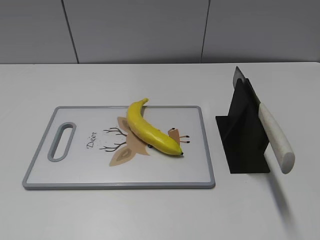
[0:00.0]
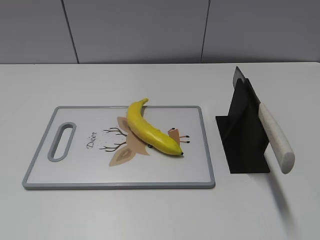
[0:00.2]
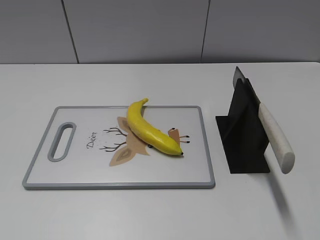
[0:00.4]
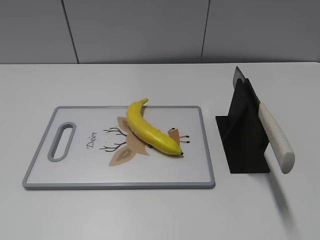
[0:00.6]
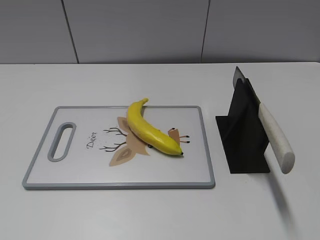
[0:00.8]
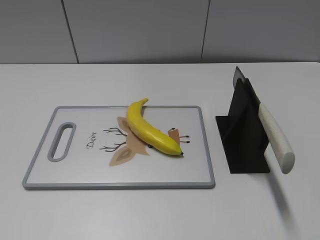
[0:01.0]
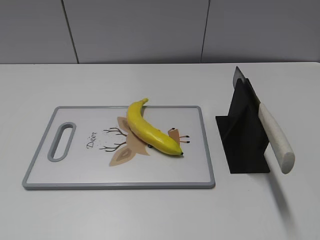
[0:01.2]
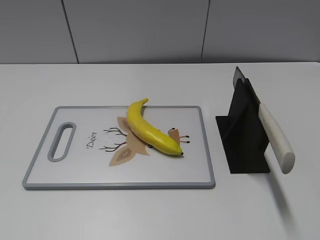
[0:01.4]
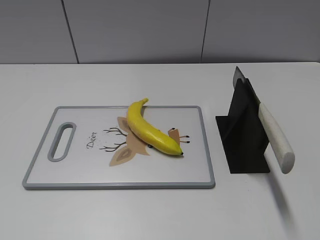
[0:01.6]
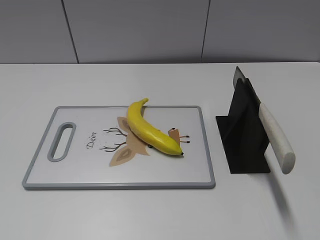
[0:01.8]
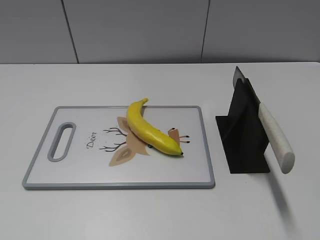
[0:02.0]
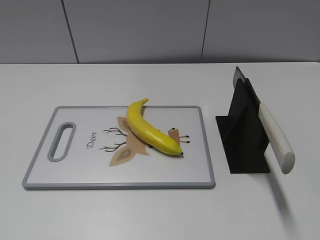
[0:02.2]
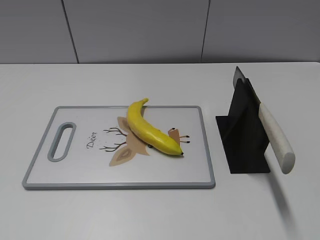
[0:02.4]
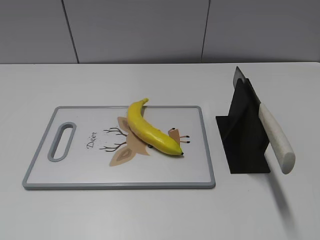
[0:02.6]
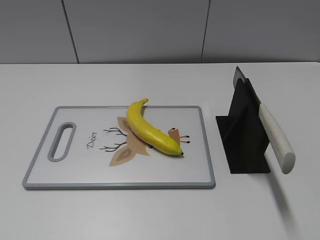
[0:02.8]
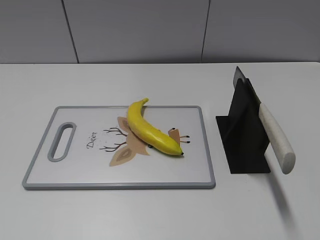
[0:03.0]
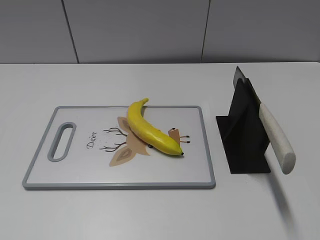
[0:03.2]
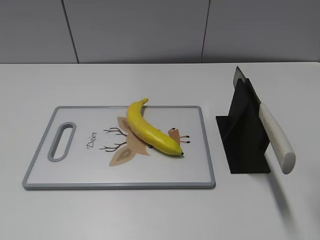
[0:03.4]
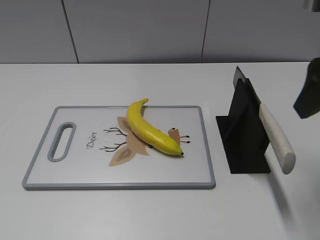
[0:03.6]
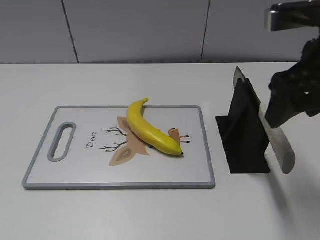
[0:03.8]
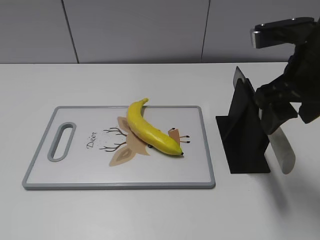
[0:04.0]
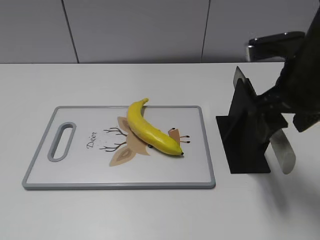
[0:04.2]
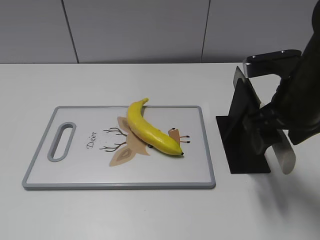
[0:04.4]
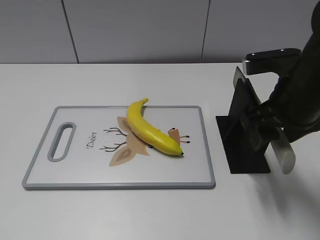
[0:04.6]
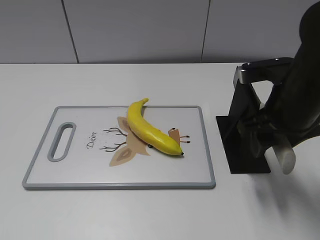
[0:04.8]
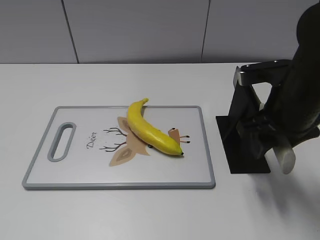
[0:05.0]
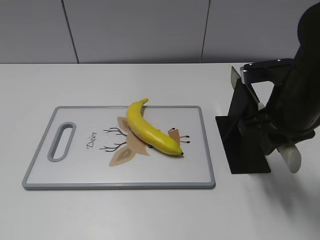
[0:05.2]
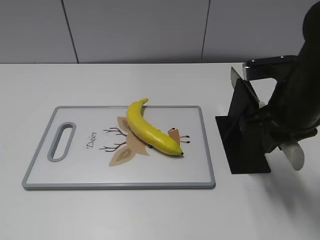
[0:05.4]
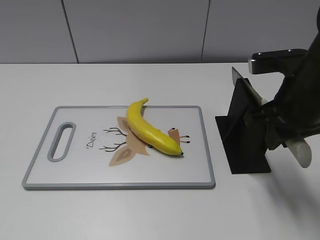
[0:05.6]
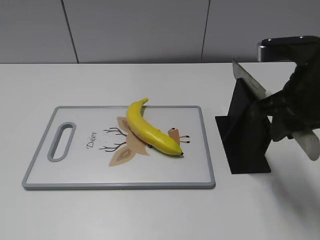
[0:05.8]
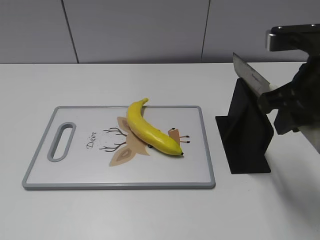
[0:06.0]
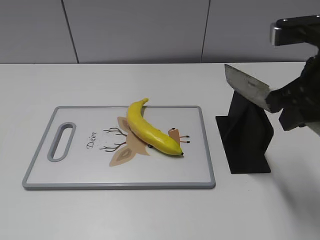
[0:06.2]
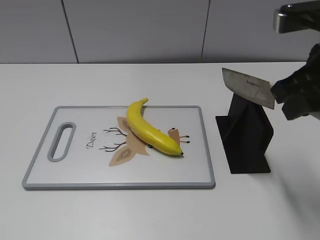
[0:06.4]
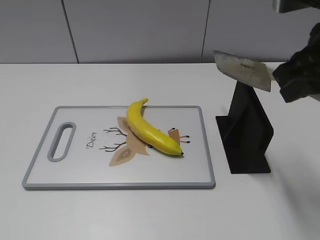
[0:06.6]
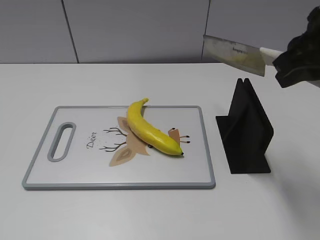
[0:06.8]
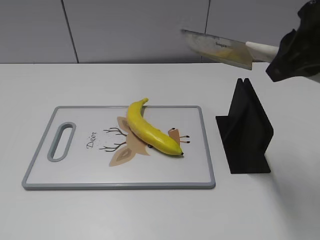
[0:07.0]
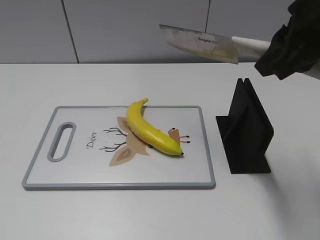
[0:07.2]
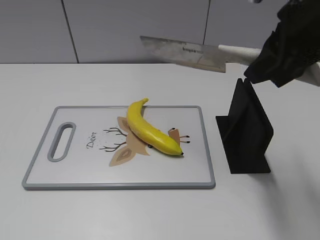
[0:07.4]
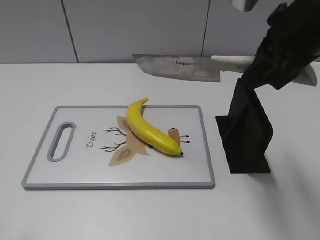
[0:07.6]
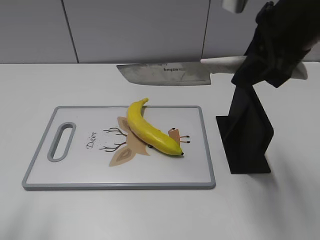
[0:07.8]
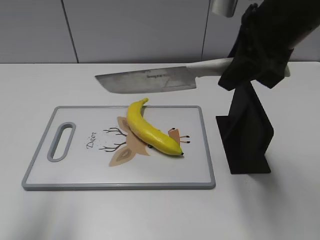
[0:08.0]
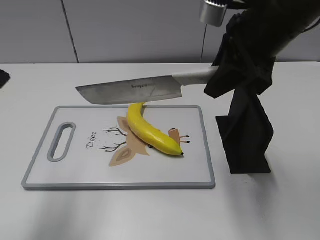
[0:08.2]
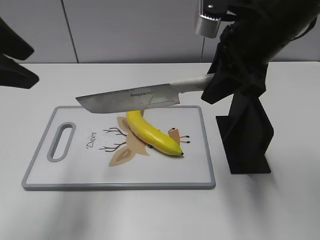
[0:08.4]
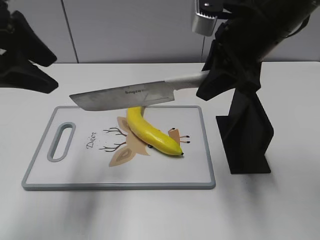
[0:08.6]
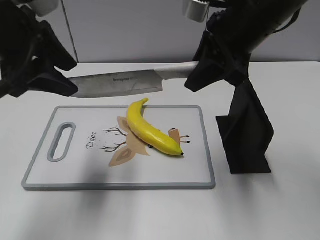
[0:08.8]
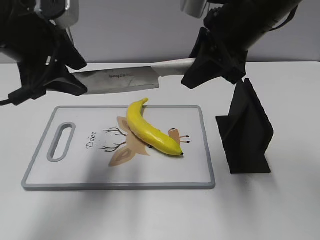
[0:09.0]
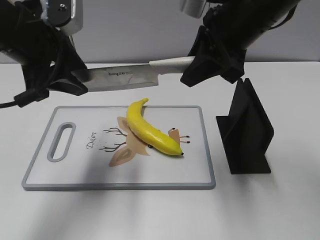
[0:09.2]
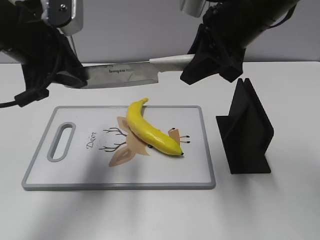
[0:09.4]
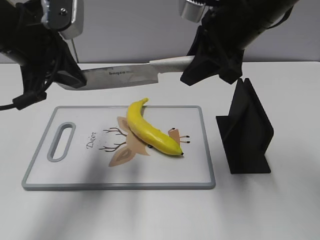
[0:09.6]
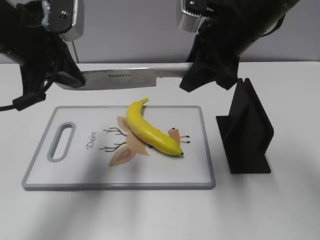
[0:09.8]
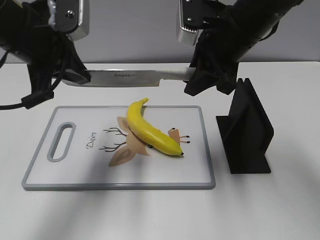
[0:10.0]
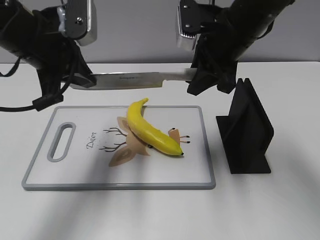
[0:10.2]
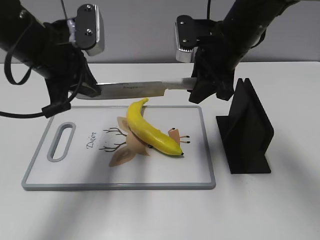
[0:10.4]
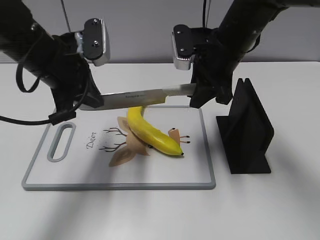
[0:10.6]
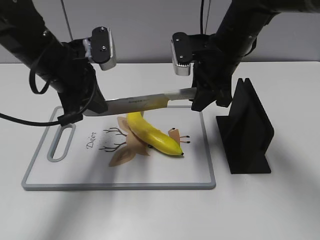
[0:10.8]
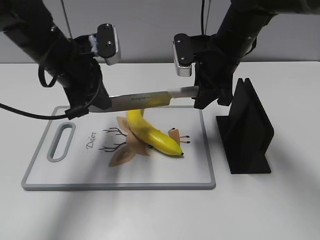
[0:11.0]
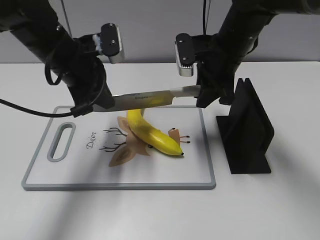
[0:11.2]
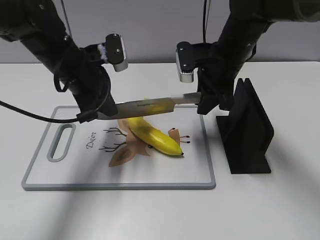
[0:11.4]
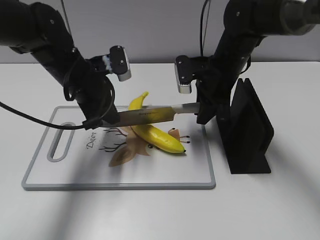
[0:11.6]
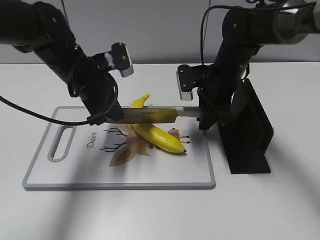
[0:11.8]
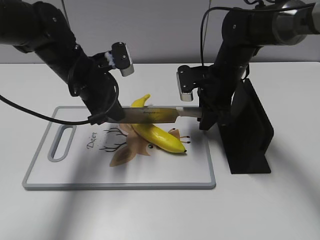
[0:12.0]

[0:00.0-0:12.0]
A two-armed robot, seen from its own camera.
Task of the whole recording: cut plastic banana.
Step, 0:00.0 to 0:06.4: Grab the knife handle with your right hand.
0:03.0 to 0:04.4: The right gripper travels forward, downward and to the left by roughly 20 cm.
0:04.4 to 0:06.0: The right gripper closes its fingers.
0:06.0 to 0:07.6: The left gripper moves forward, about 5 cm. The right gripper shifts about 5 cm upward.
0:07.6 to 0:09.0: The right gripper is displaced forward and to the left by approximately 5 cm, while the left gripper goes approximately 25 cm forward and to the right.
0:09.0 to 0:10.4: The right gripper is displaced downward and forward by about 10 cm, while the left gripper ends up about 5 cm from where it was, and closes up.
0:10.4 to 0:12.0: Both grippers move downward, approximately 10 cm.

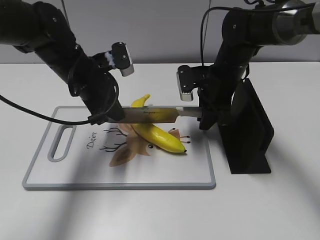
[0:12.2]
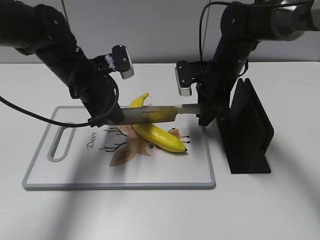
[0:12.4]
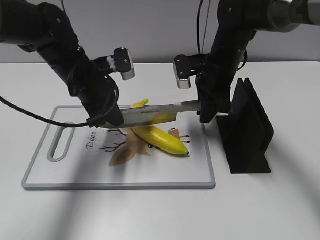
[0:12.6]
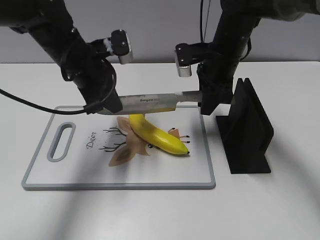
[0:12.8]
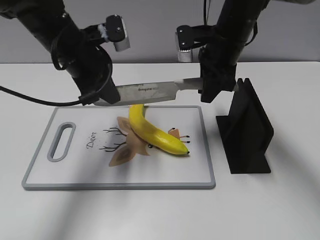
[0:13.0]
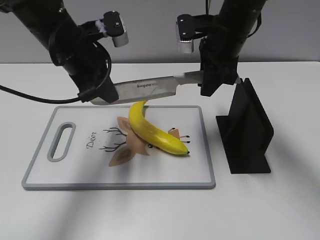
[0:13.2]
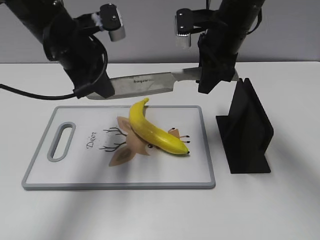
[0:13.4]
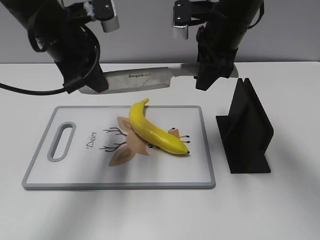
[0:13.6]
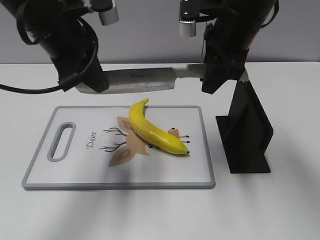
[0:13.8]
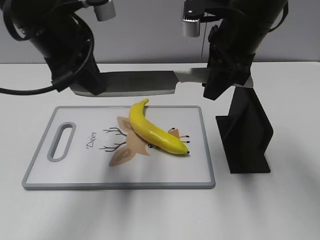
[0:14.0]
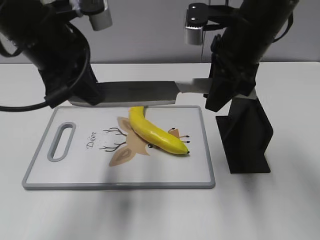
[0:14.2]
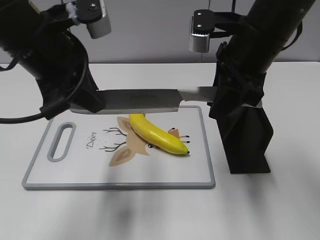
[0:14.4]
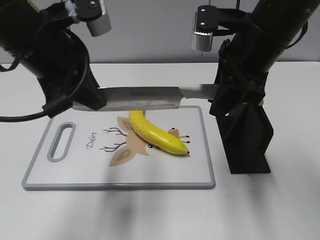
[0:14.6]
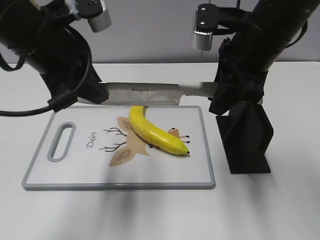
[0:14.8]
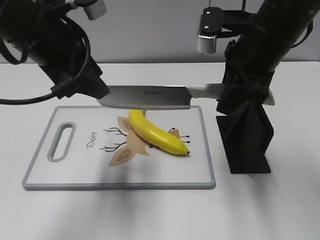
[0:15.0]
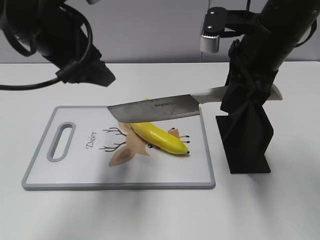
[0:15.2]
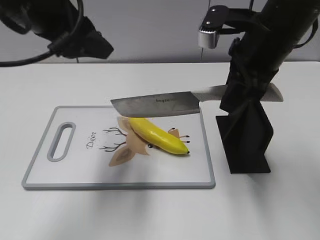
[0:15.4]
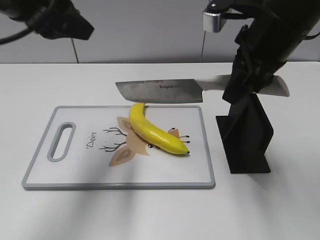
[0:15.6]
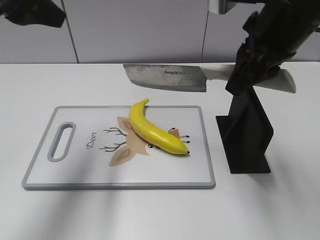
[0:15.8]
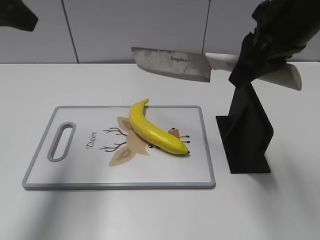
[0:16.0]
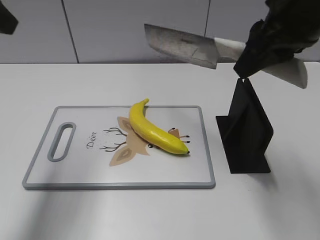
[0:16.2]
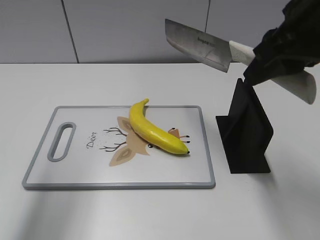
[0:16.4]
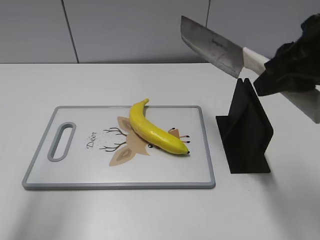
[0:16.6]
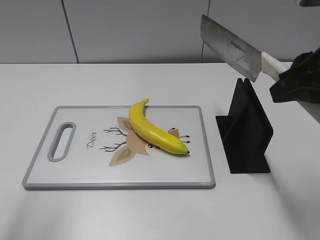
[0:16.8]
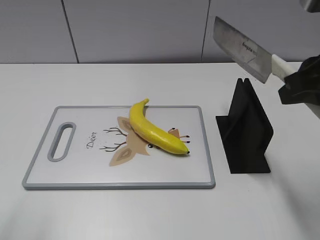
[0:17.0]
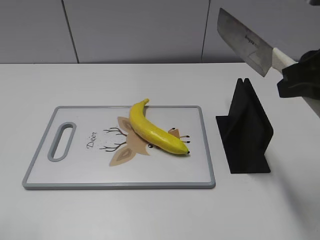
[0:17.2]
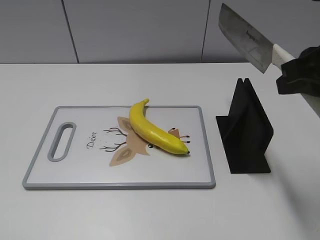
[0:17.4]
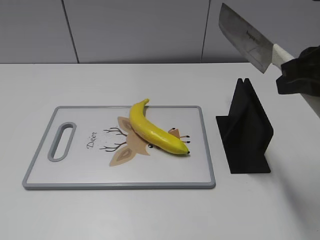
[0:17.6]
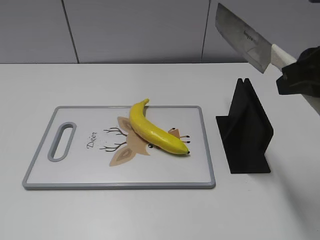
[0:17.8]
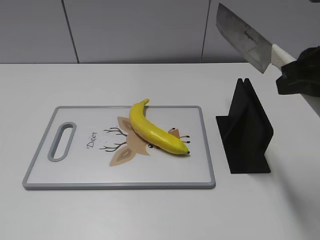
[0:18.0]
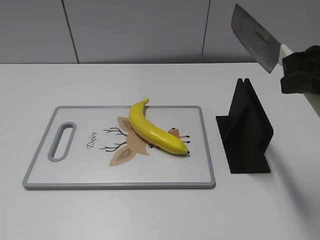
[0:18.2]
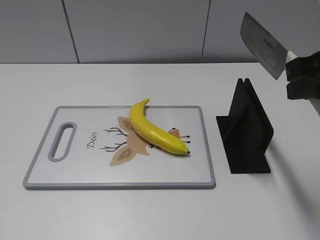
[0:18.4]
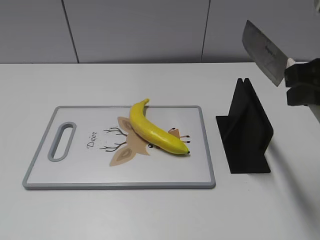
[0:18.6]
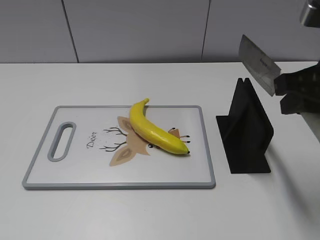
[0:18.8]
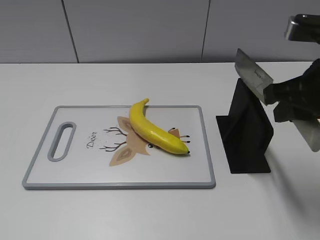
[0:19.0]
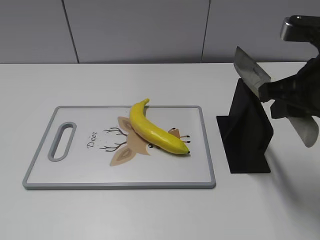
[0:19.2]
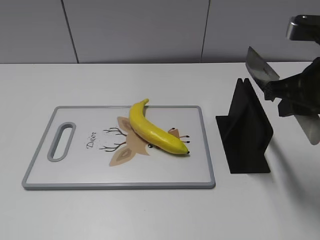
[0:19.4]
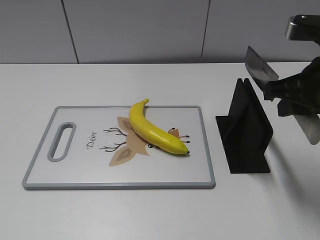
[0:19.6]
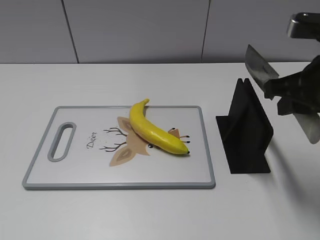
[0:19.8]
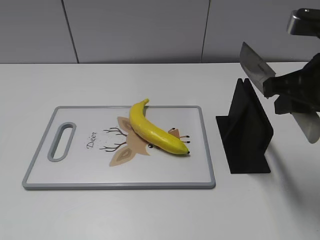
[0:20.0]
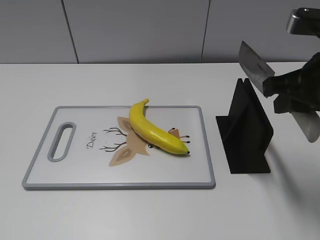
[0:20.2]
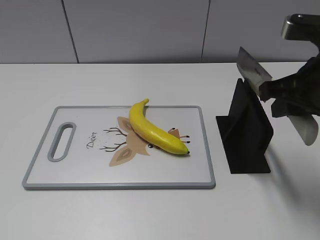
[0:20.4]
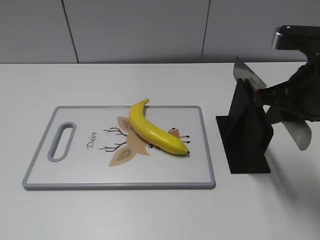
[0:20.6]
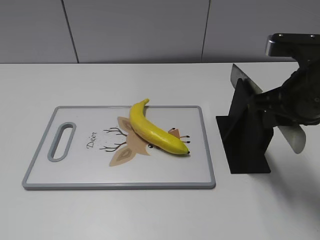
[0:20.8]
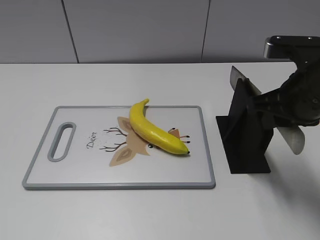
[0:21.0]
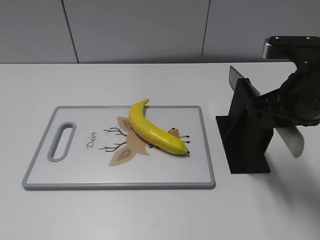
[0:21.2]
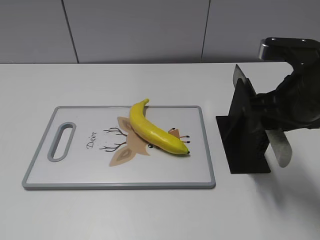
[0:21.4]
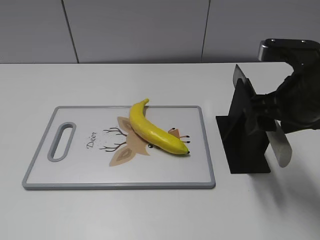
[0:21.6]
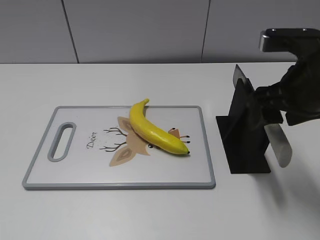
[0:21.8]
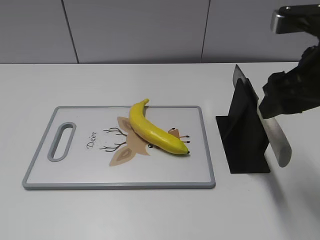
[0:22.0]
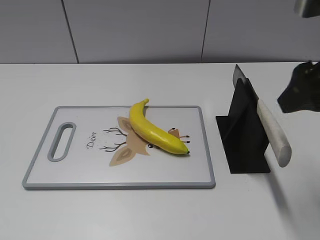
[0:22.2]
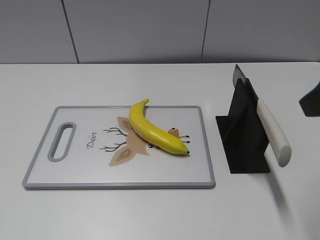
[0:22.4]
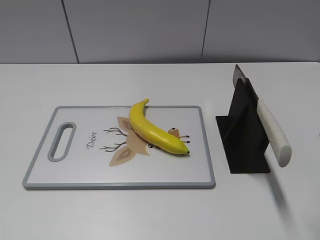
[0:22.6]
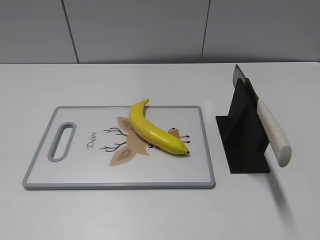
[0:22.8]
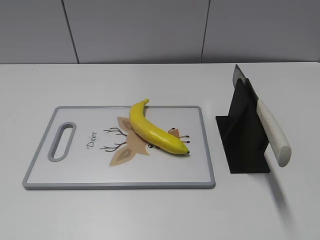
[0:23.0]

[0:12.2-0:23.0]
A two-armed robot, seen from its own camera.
Task of the whole recording: cut plastic banana.
Step, 0:12.4 to 0:14.8: Cut the banana with your right hand.
Step, 0:15.2 to 0:18.6: Lift the knife with your right hand.
0:12.2 to 0:13.8: The grippers both shift upward by roughly 15 cm.
0:13.8 to 0:15.2: The left gripper opens its fingers. The right gripper changes place by approximately 5 cm.
0:15.2 to 0:16.8: The right gripper is displaced backward and to the right by about 10 cm; the left gripper shifts approximately 20 cm backward, to the left and upward.
0:16.8 to 0:18.4: The left gripper is displaced backward and downward by approximately 20 cm.
0:18.4 to 0:20.0: The grippers move only a little.
0:20.0 to 0:21.4: The right gripper opens up.
0:21.4 to 0:23.0: The right gripper goes some 20 cm backward and to the right.
